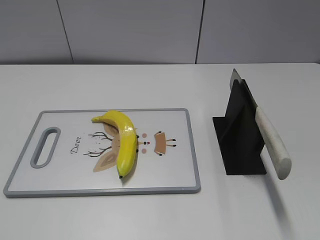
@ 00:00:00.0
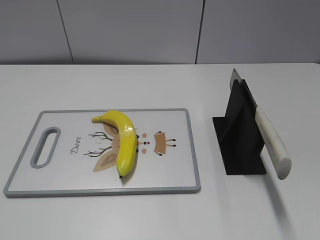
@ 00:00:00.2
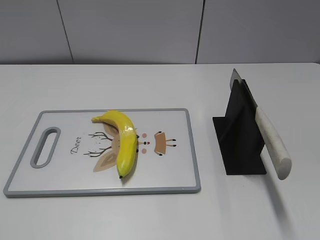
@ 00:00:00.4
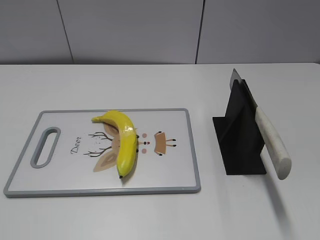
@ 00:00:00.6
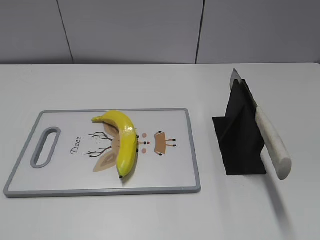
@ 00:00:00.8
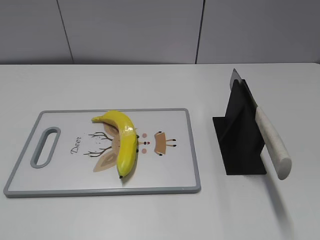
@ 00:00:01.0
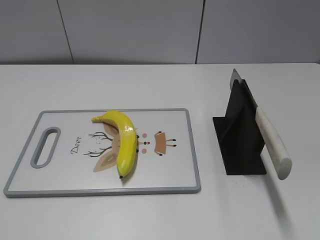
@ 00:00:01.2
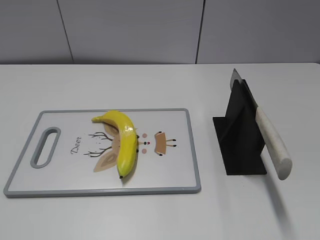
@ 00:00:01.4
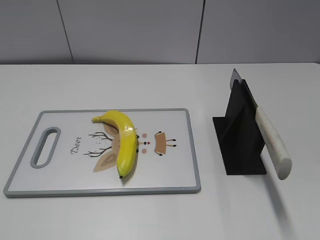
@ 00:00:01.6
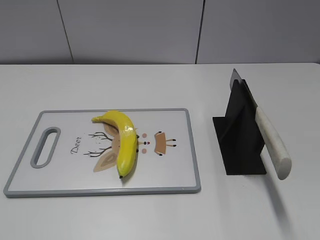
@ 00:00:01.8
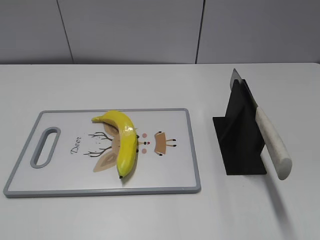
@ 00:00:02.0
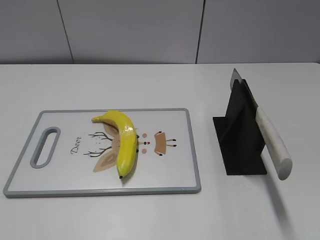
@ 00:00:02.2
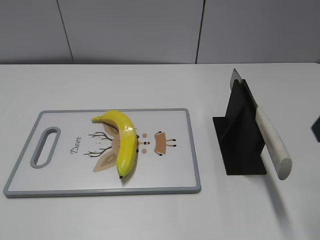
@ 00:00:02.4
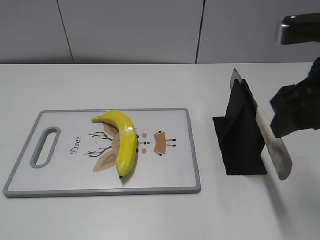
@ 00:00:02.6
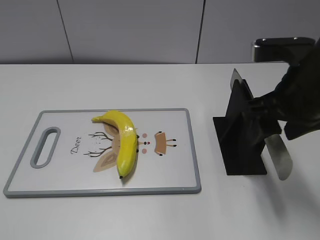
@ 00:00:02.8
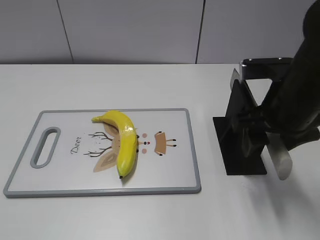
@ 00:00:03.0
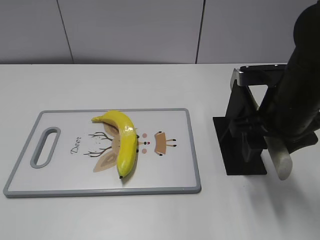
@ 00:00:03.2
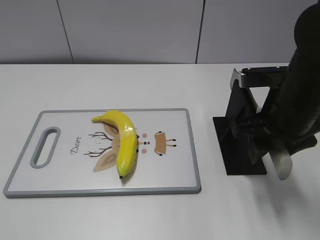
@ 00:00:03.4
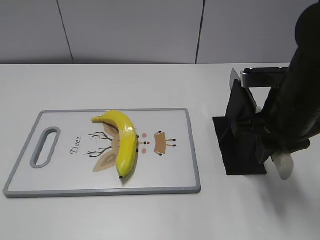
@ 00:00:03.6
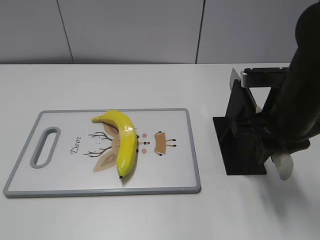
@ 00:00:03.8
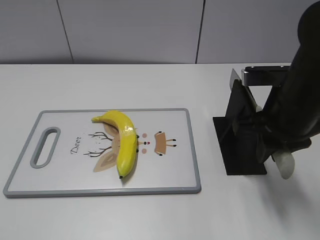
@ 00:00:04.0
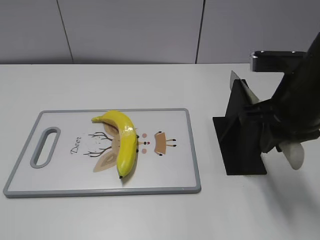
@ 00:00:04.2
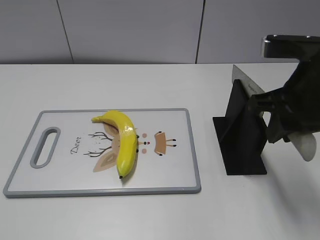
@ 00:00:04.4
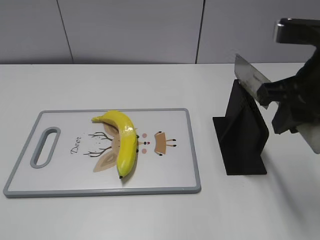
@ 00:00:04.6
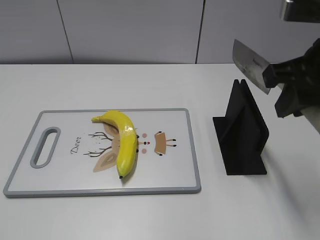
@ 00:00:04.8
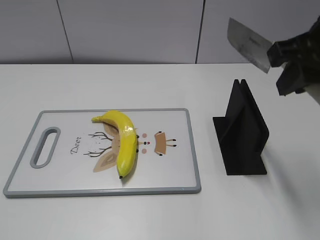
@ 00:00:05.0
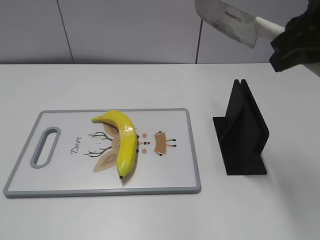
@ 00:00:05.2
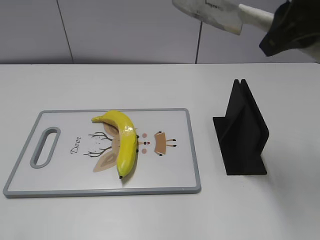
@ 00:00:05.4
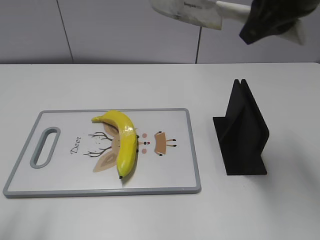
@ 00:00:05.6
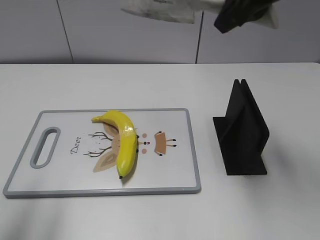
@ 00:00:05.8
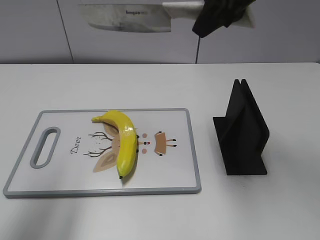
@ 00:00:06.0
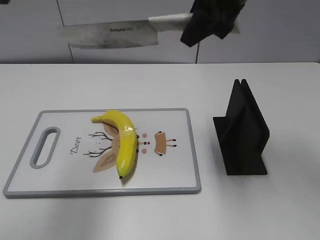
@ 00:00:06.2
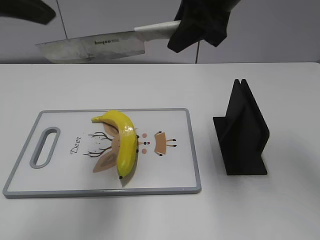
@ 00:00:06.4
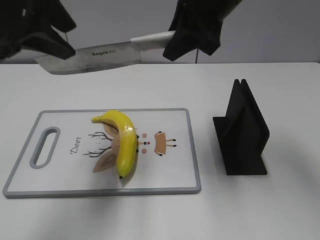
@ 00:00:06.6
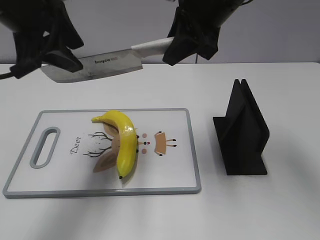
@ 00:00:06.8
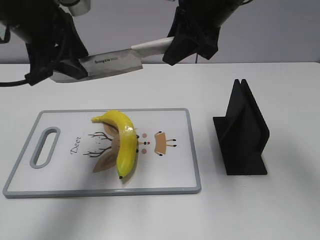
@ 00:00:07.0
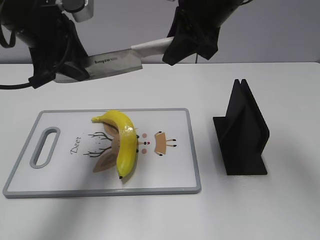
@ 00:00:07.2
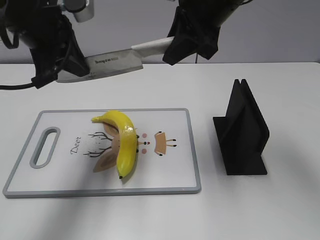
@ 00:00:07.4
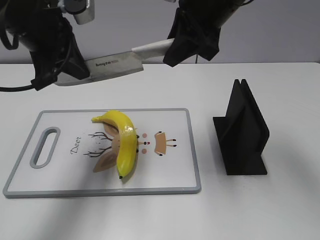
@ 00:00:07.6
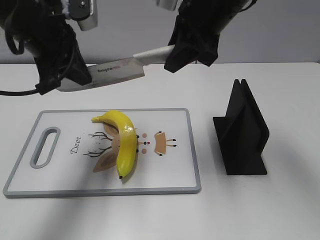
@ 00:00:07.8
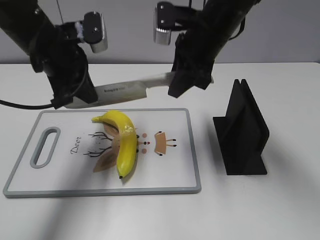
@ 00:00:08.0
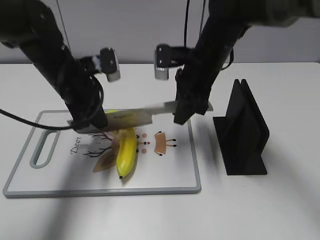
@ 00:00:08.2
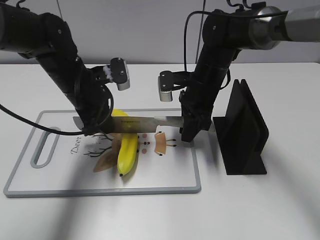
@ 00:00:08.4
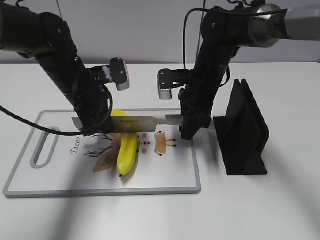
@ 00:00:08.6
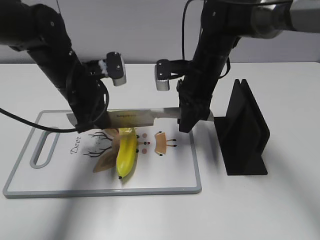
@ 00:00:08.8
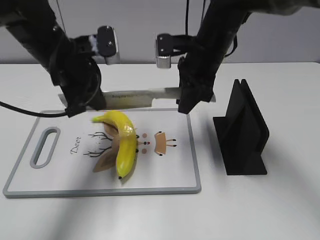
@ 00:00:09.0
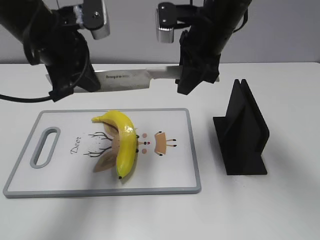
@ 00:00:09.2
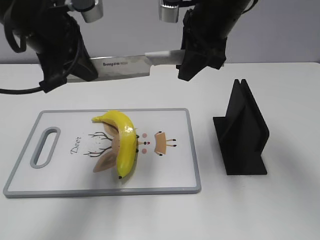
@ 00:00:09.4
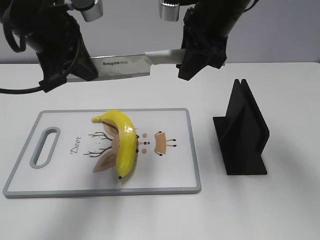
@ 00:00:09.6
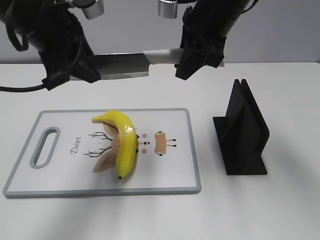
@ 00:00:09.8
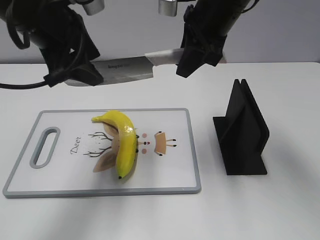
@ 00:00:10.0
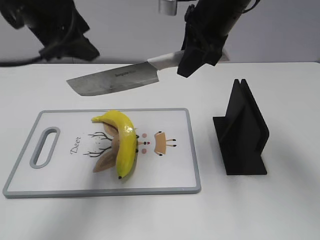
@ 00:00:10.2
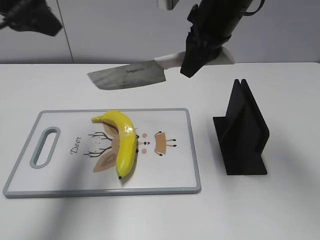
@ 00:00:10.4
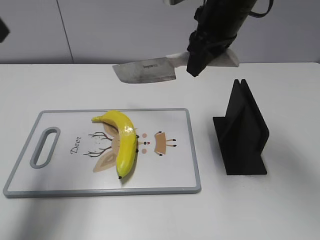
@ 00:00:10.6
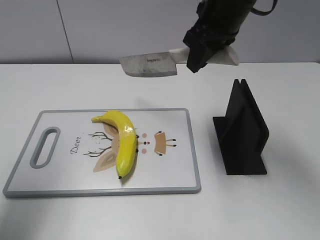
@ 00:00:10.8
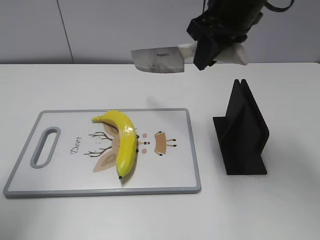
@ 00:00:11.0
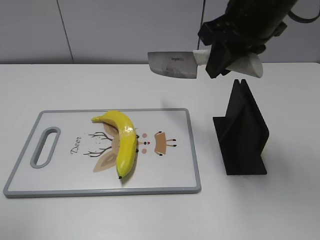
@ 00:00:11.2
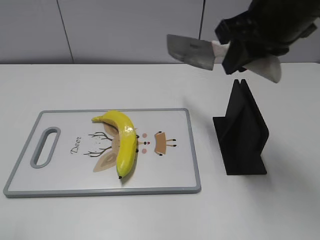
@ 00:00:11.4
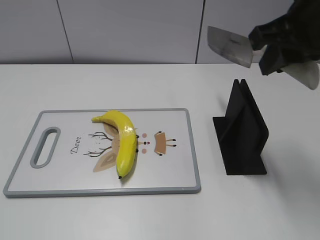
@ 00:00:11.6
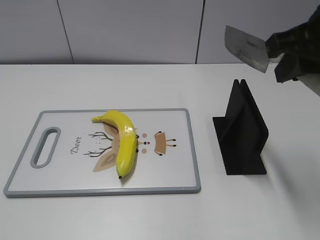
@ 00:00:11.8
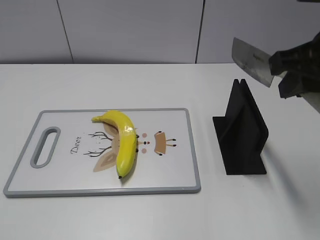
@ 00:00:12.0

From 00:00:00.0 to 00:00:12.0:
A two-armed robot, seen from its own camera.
Task of the whole recording: cut plastic banana.
Step, from 00:00:00.0 to 00:00:05.0: Grab the knife handle with your right hand.
Step, from 00:00:05.2 to 00:00:09.0: Lift the knife with your right hand.
Step, from 00:00:09.4 to 00:00:10.0: Cut the banana with your right hand.
From 00:00:01.6 to 00:00:03.0: The right gripper travels forward and to the left by some 30 cm.
From 00:00:03.0 to 00:00:04.4: The right gripper closes its fingers.
From 00:00:04.4 to 00:00:06.0: The left gripper shifts about 20 cm forward and upward, while the right gripper travels upward, forward and to the left by approximately 15 cm.
From 00:00:06.0 to 00:00:07.6: The right gripper is displaced downward by roughly 5 cm. Meanwhile the left gripper is displaced forward, to the right and downward by some 20 cm, and closes.
From 00:00:07.6 to 00:00:09.0: The left gripper heads downward, covering approximately 5 cm, while the right gripper goes about 10 cm downward.
From 00:00:09.0 to 00:00:10.4: The left gripper heads upward and to the left, covering approximately 15 cm, and opens, while the right gripper heads upward, covering roughly 10 cm.
From 00:00:10.4 to 00:00:12.0: The left gripper moves backward, about 30 cm, while the right gripper is displaced backward and to the right by roughly 20 cm.

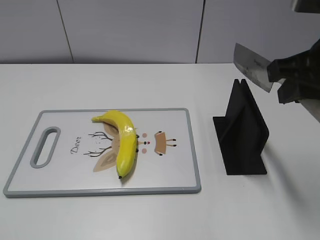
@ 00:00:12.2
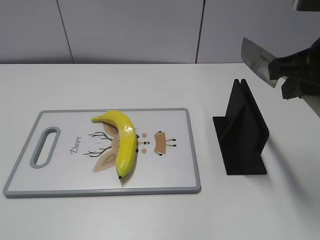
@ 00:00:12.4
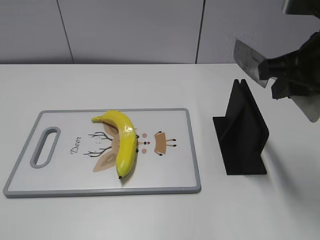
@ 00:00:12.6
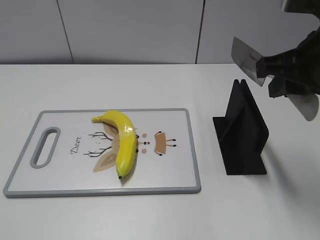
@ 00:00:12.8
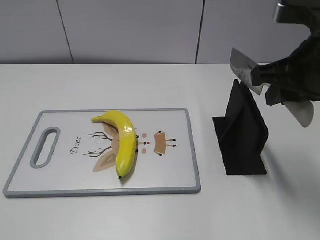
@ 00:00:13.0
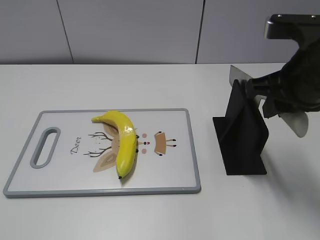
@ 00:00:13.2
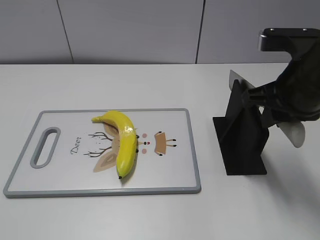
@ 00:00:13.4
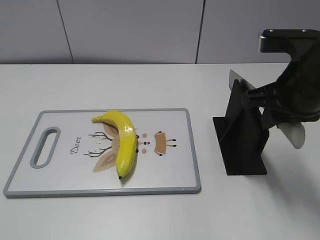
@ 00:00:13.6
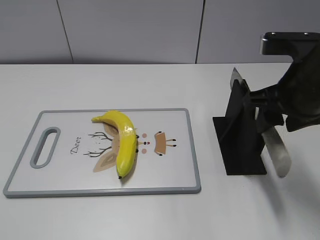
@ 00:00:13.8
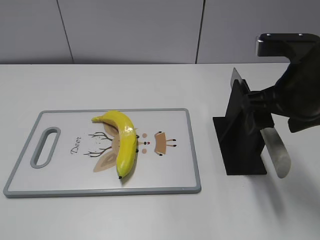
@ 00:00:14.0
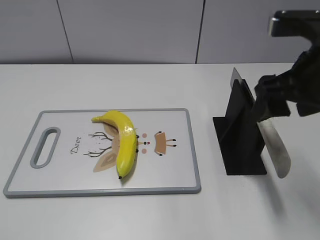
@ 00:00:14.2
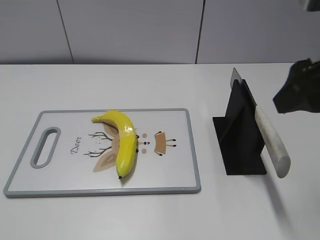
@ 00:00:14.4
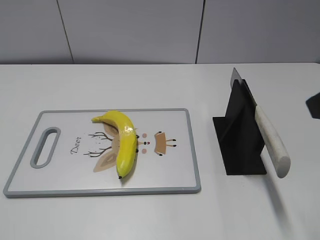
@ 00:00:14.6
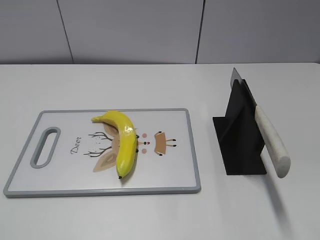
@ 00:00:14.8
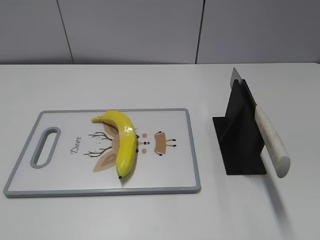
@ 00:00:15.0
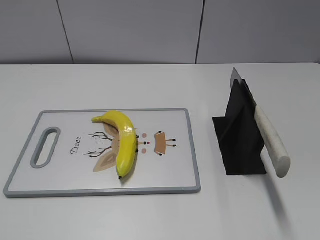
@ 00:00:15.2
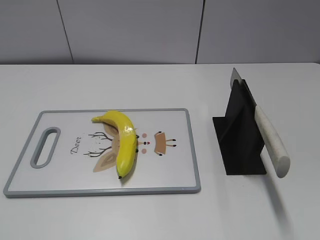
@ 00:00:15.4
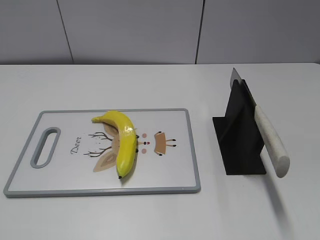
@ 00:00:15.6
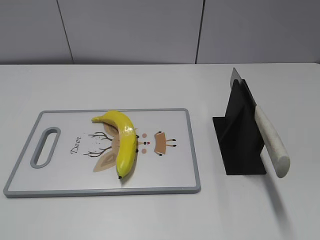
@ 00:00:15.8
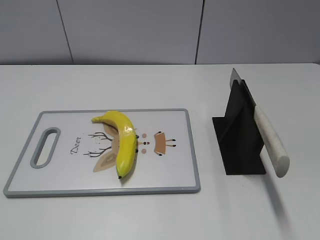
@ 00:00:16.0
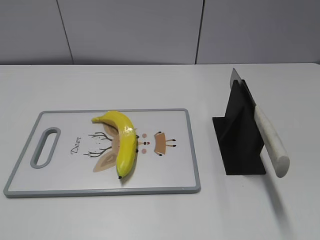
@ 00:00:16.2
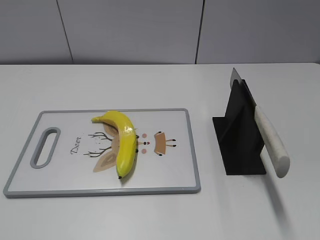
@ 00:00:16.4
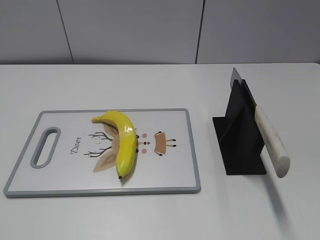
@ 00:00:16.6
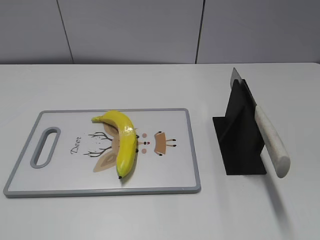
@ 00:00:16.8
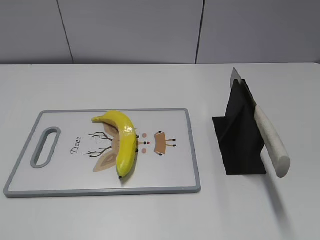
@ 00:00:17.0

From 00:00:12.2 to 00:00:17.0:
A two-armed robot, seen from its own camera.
Task of the whole recording: cut plastic banana.
Step, from 00:00:12.4 to 00:00:17.0: Place the knife on the storage rack with your right hand.
From 00:00:12.2 to 00:00:13.8: The right gripper heads downward, covering some 5 cm, and opens its fingers.
From 00:00:13.8 to 00:00:15.4: The right gripper shifts approximately 20 cm backward and to the right, and opens.
